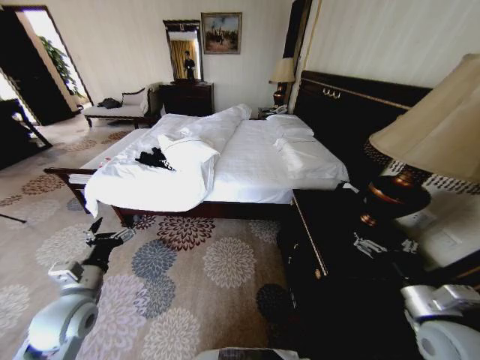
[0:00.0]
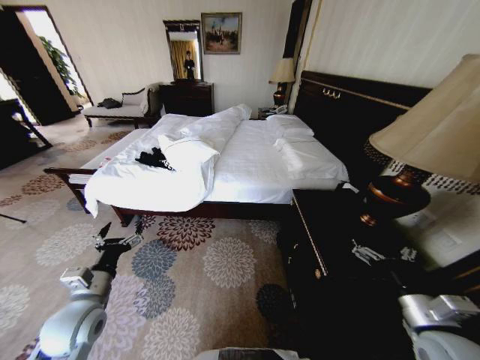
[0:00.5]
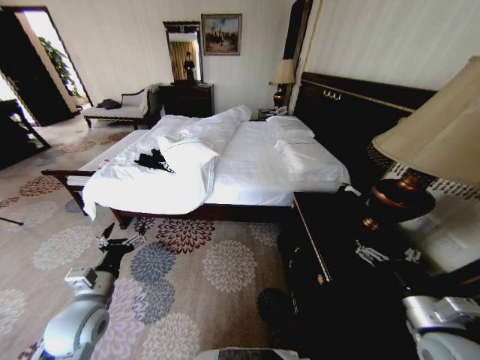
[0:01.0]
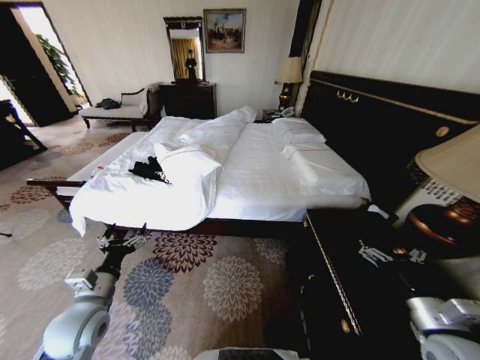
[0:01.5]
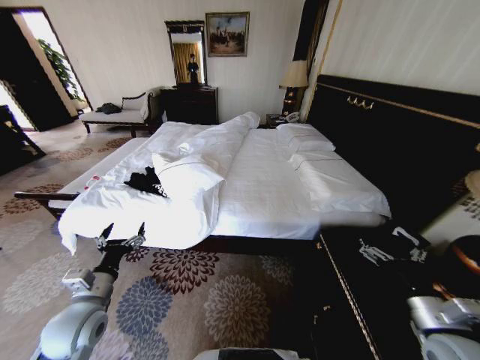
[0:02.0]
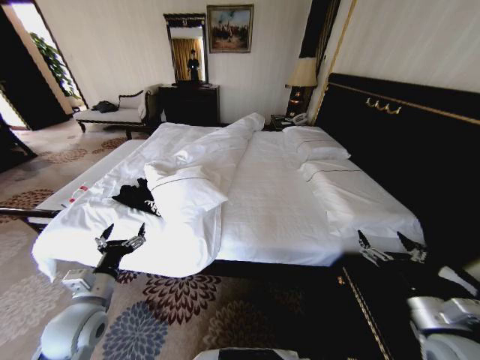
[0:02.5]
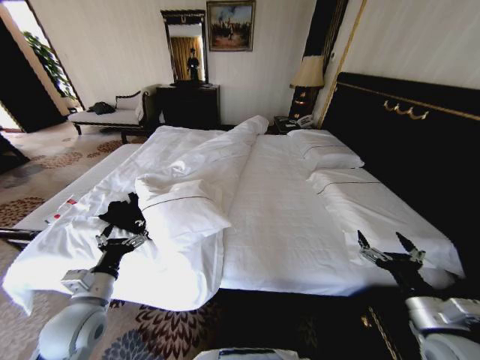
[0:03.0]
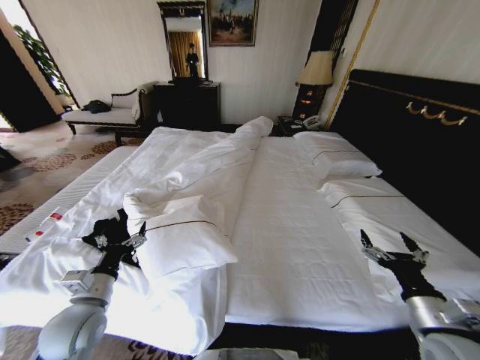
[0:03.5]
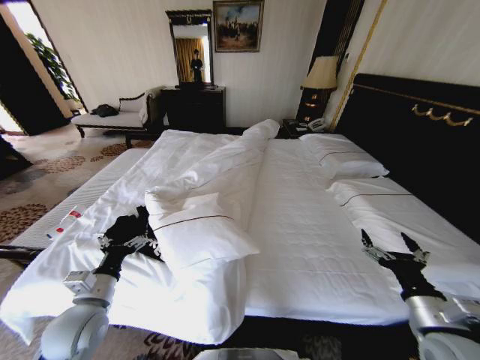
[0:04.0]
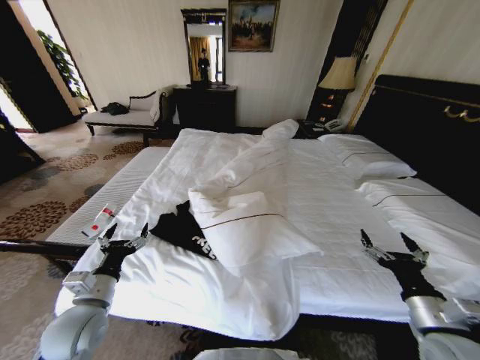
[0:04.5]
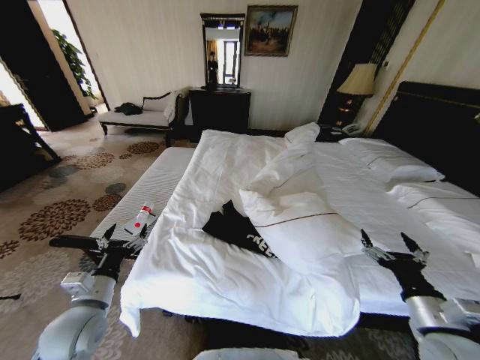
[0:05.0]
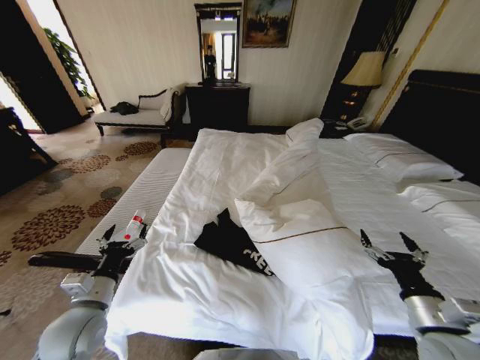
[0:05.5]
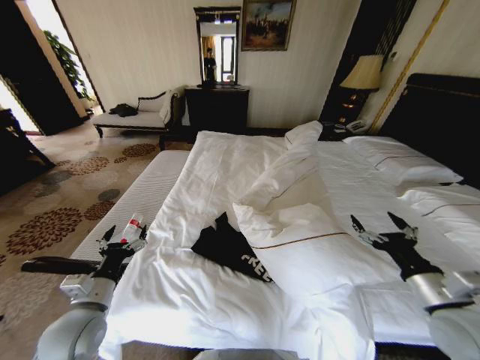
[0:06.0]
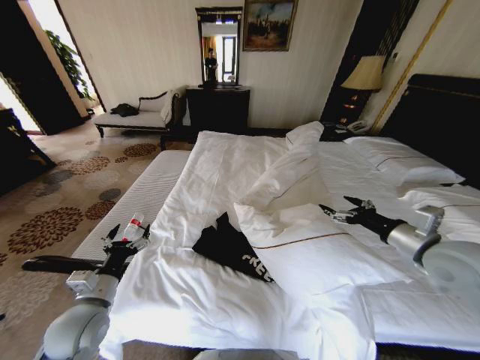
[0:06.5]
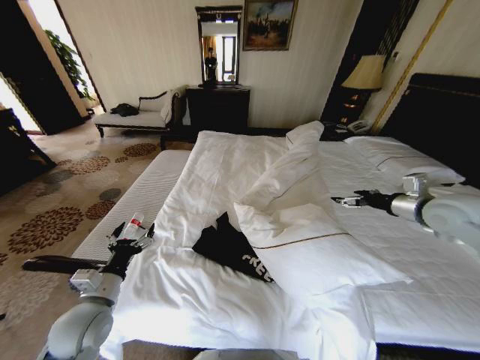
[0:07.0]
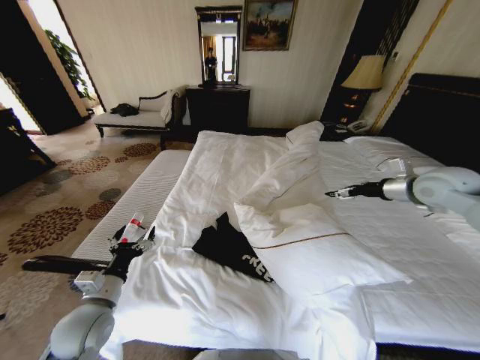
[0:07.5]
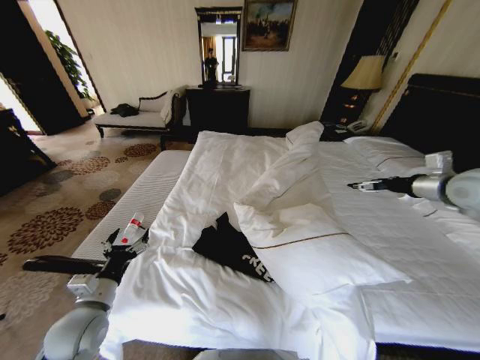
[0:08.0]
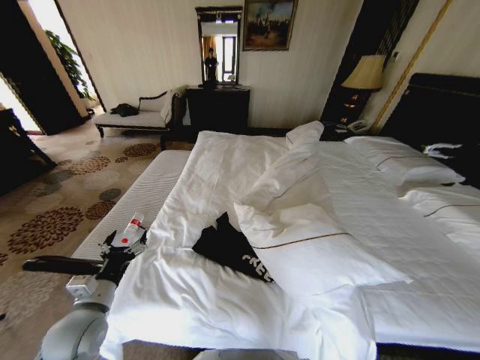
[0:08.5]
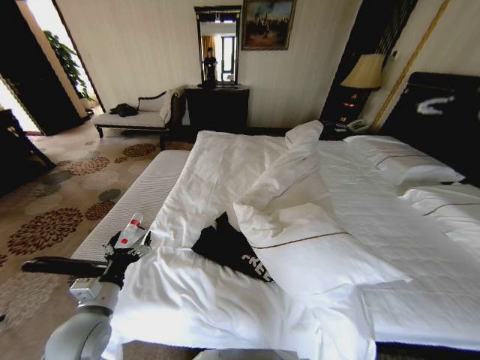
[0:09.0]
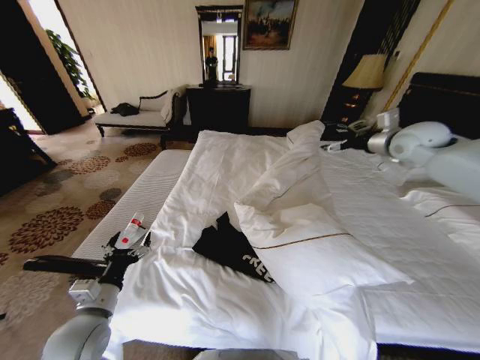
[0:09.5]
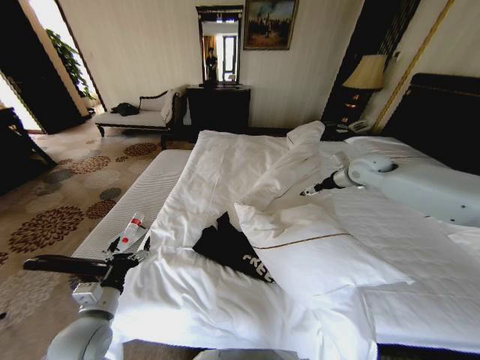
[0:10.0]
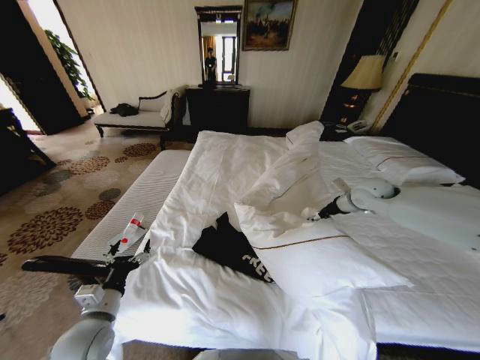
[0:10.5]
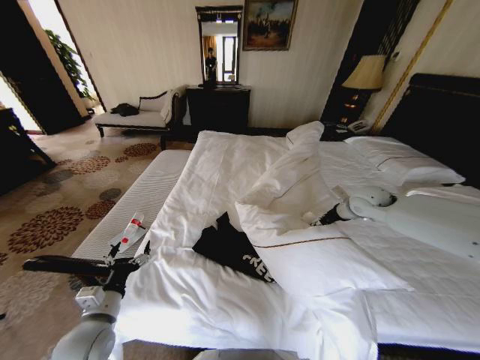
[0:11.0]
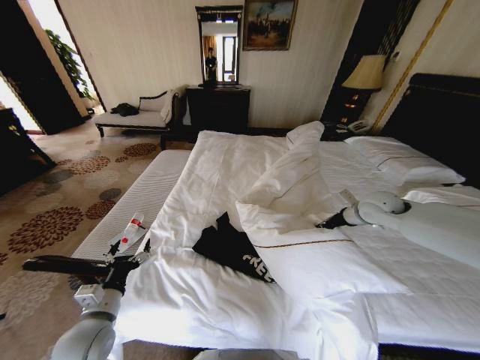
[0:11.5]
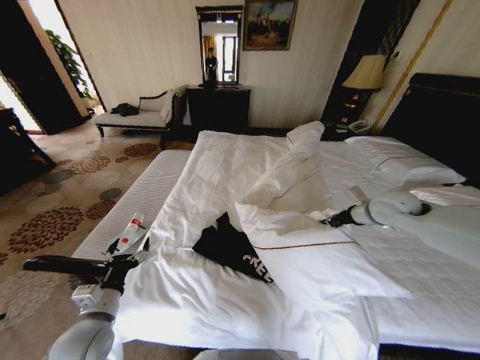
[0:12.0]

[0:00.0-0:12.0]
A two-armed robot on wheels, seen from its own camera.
Task of the whole recording: Fold the clothes on the bed.
0:06.0 to 0:08.0: The right gripper shifts some 30 cm forward, upward and to the right.
0:08.0 to 0:10.0: The right gripper is displaced forward and to the left by roughly 20 cm.
0:10.0 to 0:12.0: The right gripper travels backward and downward by some 15 cm, and closes.

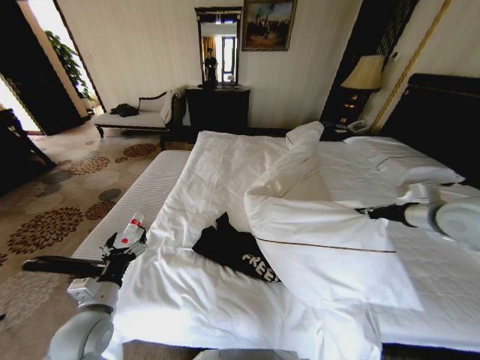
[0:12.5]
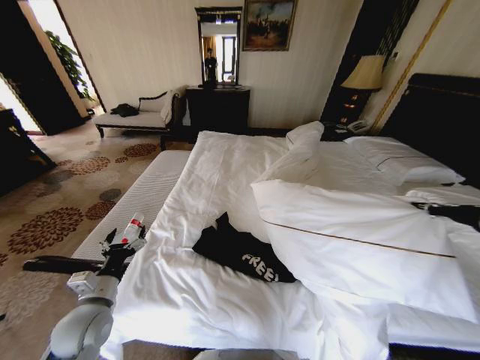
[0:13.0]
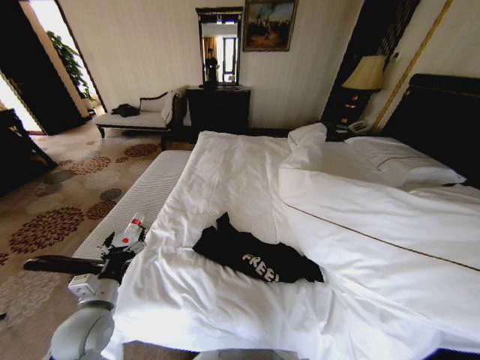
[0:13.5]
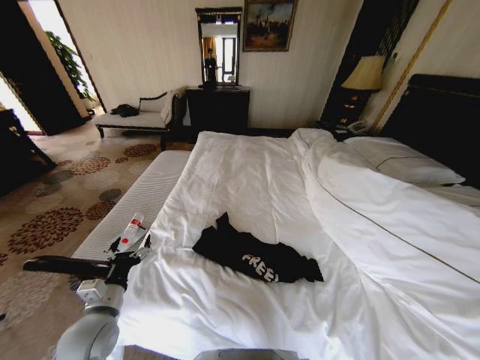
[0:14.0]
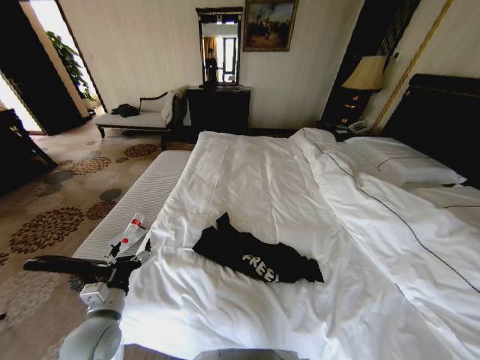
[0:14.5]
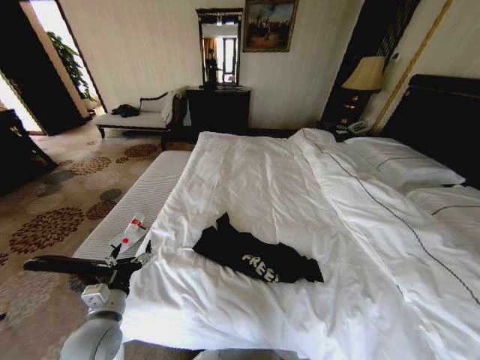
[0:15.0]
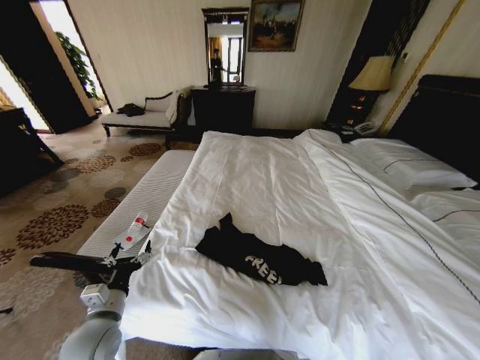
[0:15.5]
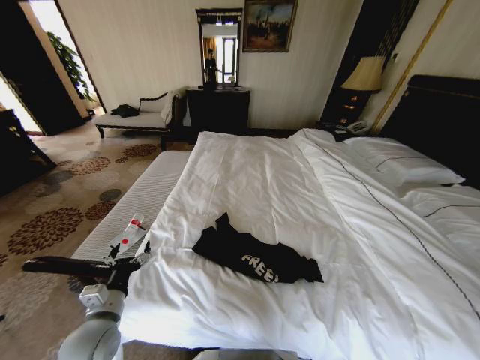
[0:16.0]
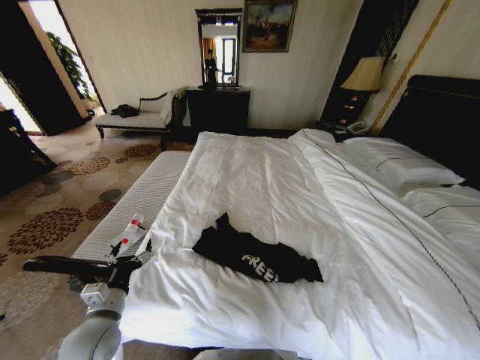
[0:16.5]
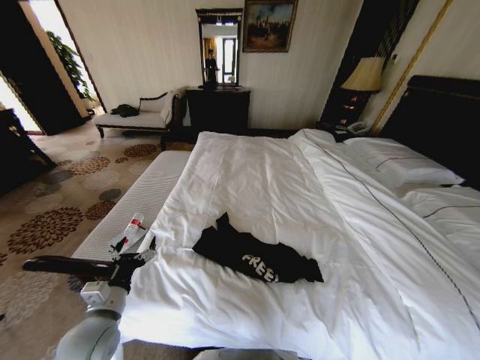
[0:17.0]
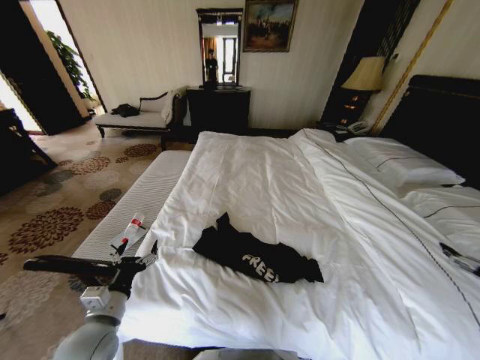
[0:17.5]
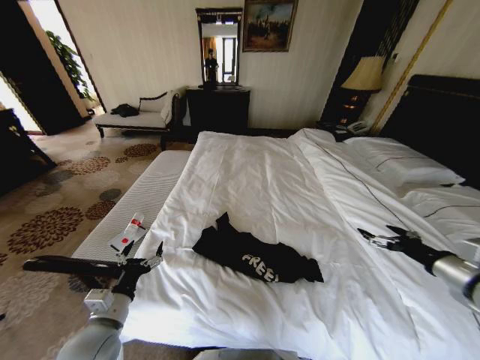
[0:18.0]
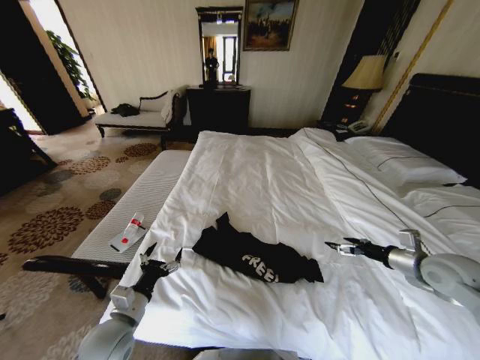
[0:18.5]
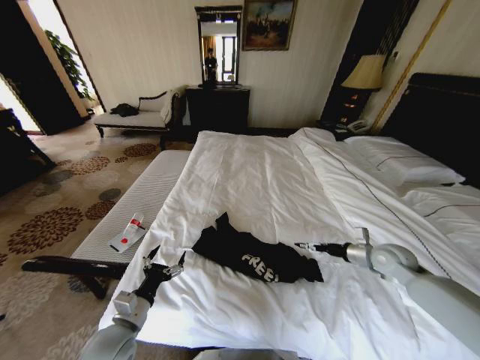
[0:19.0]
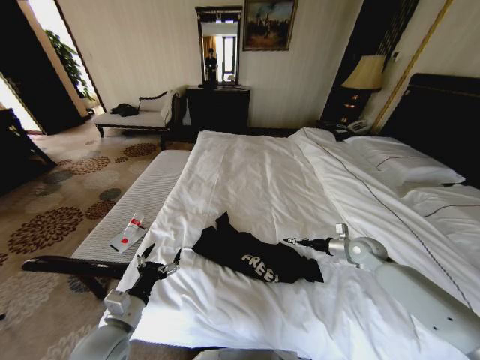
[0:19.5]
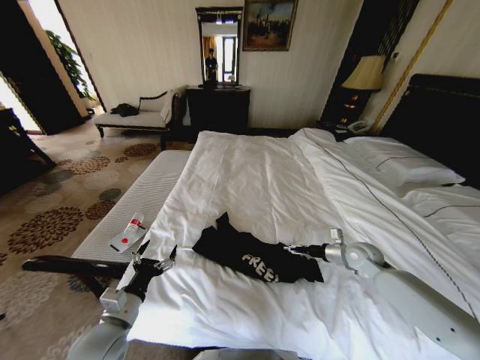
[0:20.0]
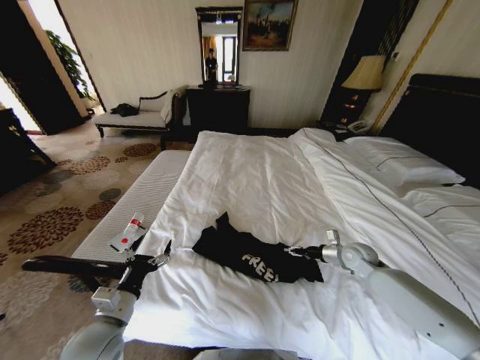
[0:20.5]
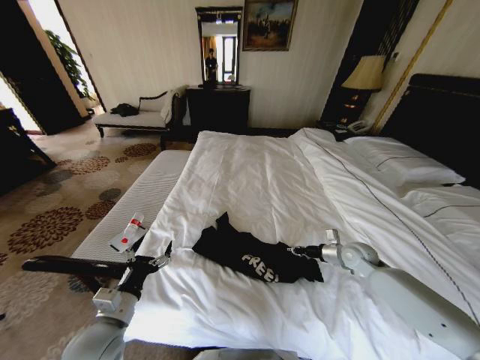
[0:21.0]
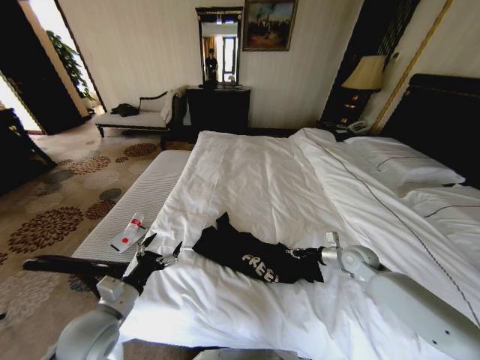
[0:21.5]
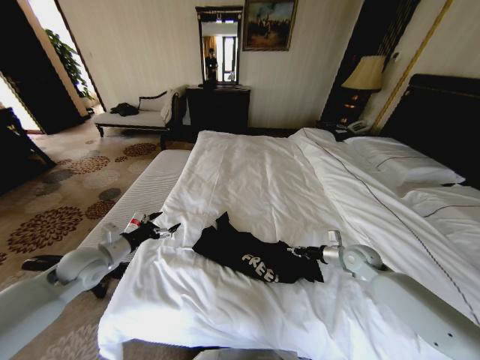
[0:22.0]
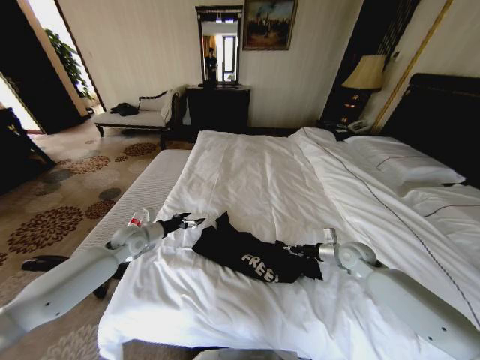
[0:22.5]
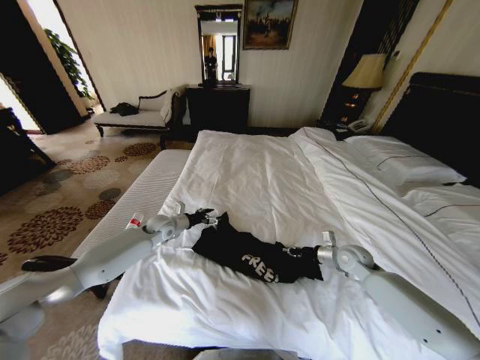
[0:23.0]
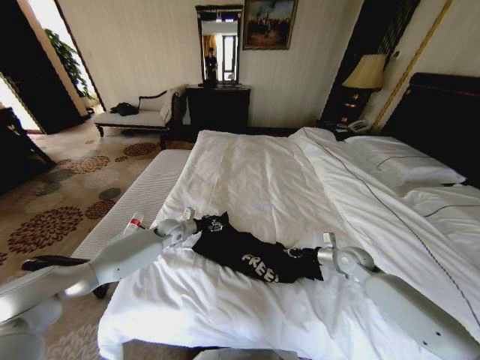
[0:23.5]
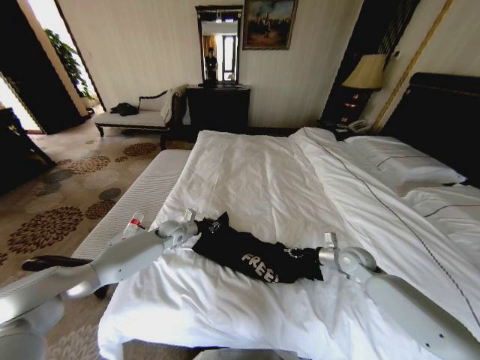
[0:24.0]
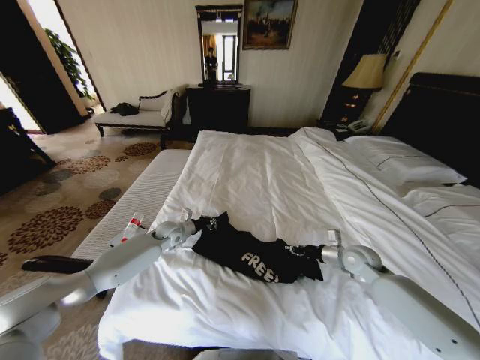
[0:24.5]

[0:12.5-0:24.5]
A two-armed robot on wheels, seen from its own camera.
Task of the whole recording: Fold the clothes on the bed.
0:12.5 to 0:14.5: The right gripper travels backward and to the right by approximately 50 cm.
0:14.5 to 0:16.5: The right gripper travels downward and to the left by about 15 cm, and opens its fingers.
0:16.5 to 0:18.5: The right gripper moves forward, about 40 cm.
0:18.5 to 0:20.5: The right gripper travels downward, forward and to the left by roughly 20 cm, and closes.
0:20.5 to 0:22.5: The right gripper closes its fingers, while the left gripper heads forward, covering about 25 cm.
0:22.5 to 0:24.5: The left gripper travels to the right, forward and downward by roughly 15 cm, and closes.

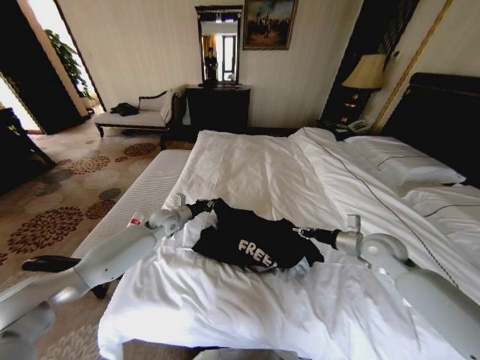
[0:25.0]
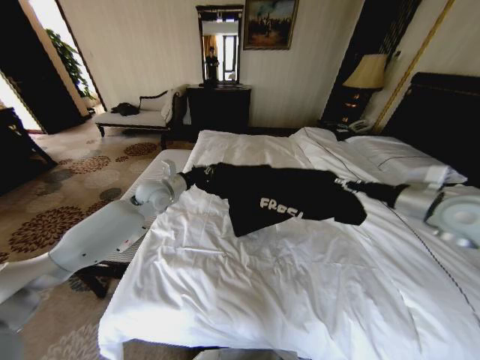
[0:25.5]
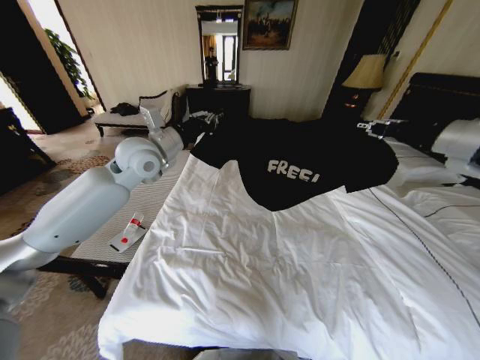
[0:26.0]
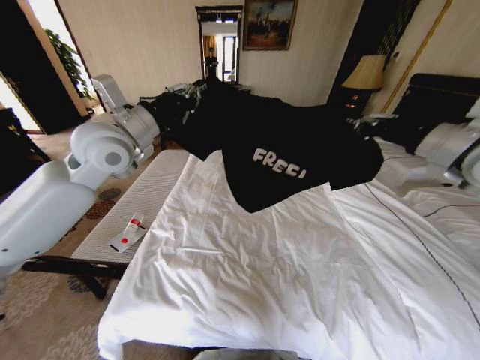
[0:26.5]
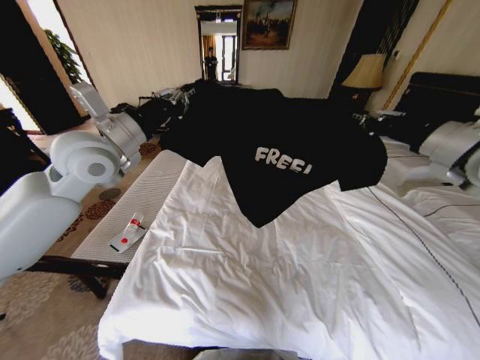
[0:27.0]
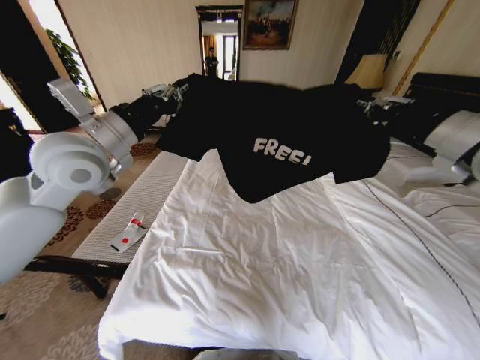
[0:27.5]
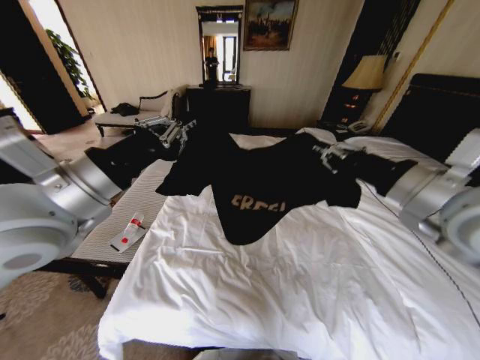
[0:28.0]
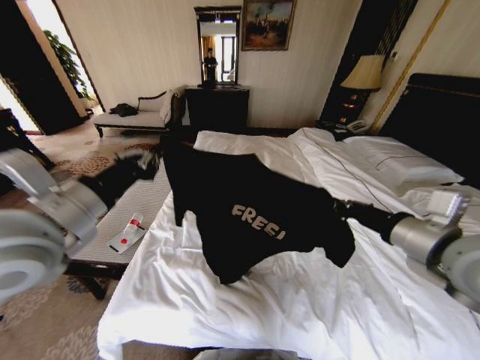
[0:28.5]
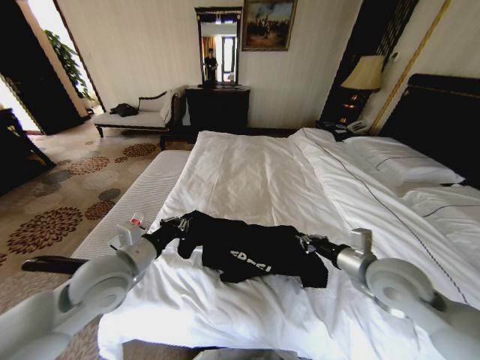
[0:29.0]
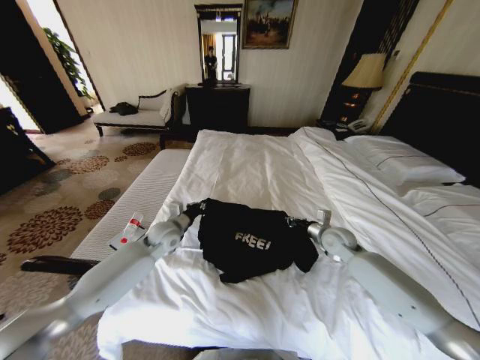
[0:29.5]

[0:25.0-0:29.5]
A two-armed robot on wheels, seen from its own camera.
Task of the whole recording: Fold the clothes on the bed.
0:25.0 to 0:27.0: The two grippers go some 30 cm upward.
0:27.0 to 0:29.5: Both grippers move downward, roughly 30 cm.
